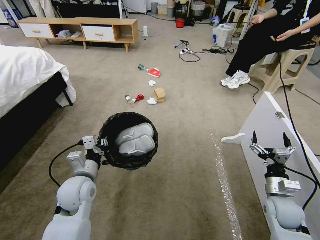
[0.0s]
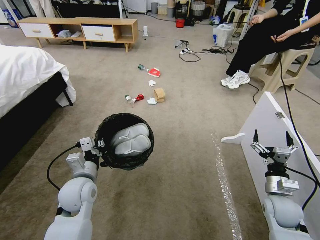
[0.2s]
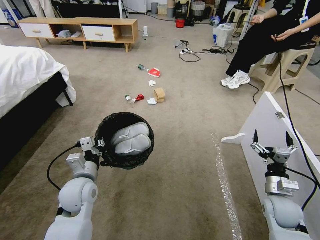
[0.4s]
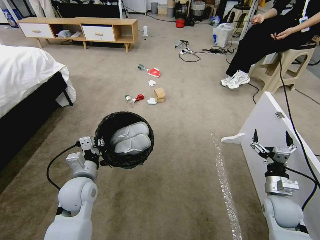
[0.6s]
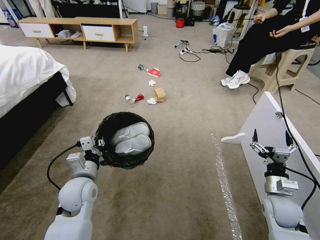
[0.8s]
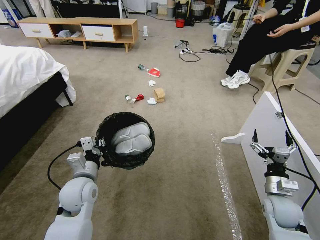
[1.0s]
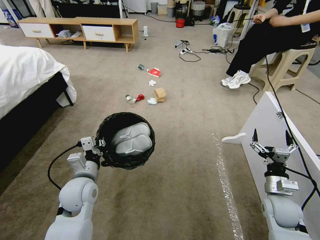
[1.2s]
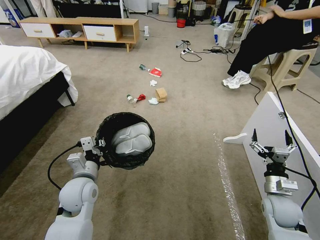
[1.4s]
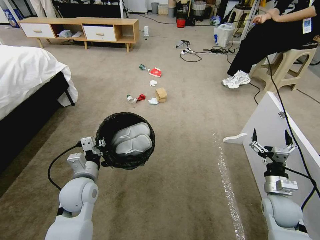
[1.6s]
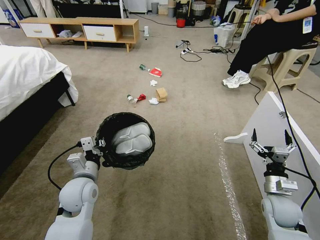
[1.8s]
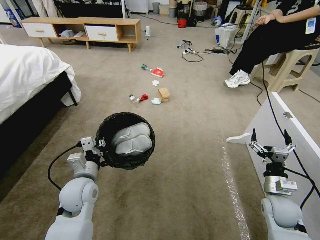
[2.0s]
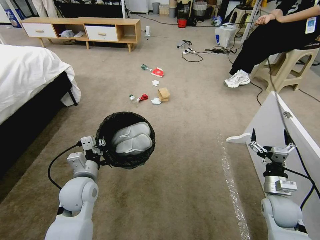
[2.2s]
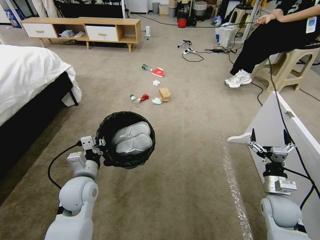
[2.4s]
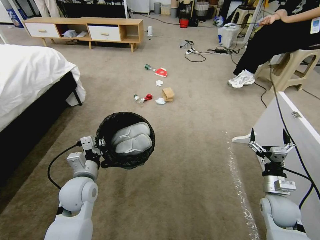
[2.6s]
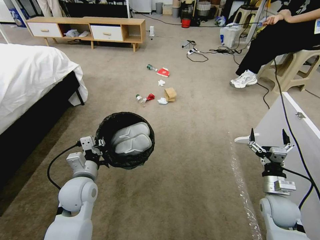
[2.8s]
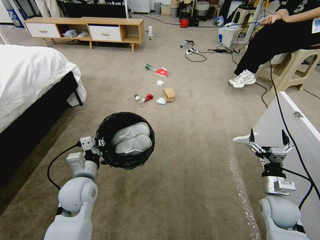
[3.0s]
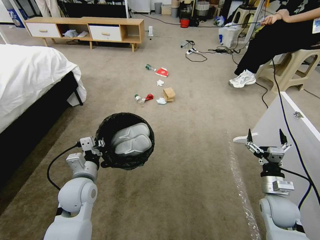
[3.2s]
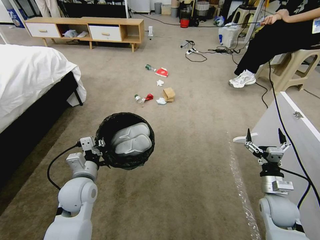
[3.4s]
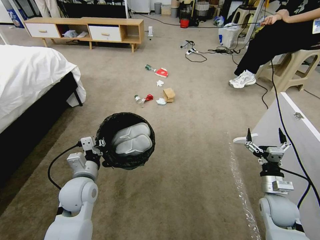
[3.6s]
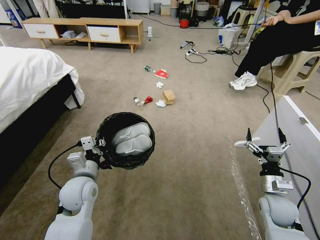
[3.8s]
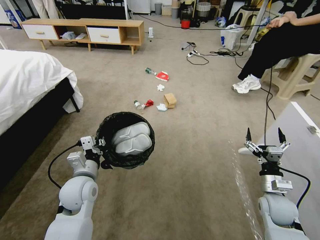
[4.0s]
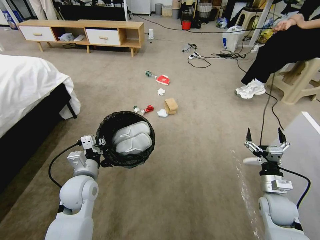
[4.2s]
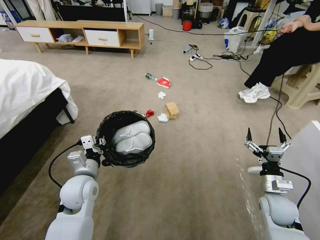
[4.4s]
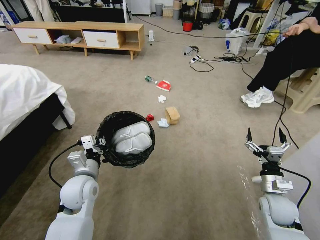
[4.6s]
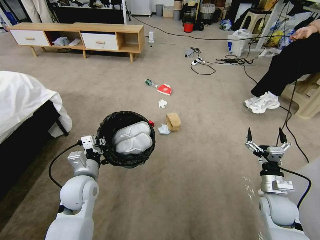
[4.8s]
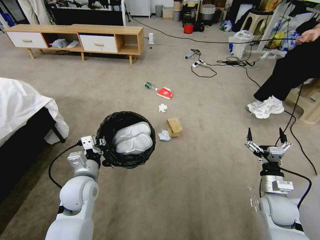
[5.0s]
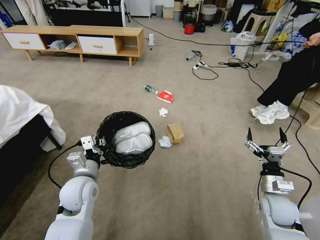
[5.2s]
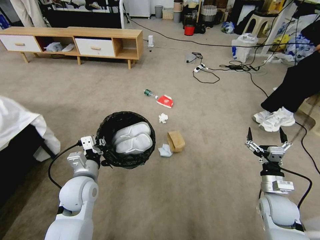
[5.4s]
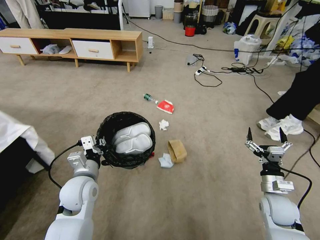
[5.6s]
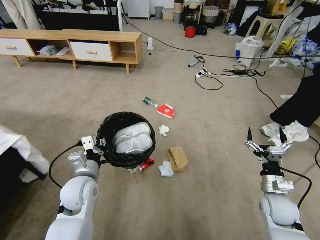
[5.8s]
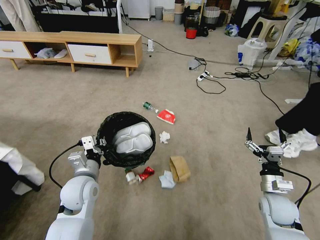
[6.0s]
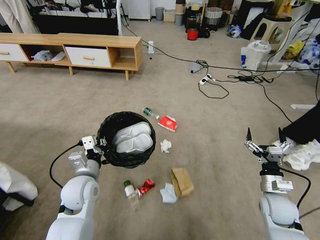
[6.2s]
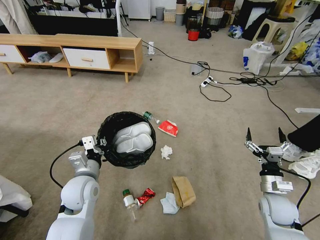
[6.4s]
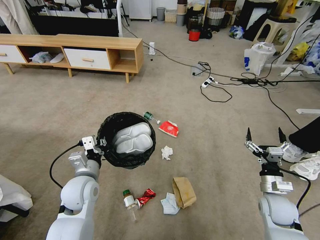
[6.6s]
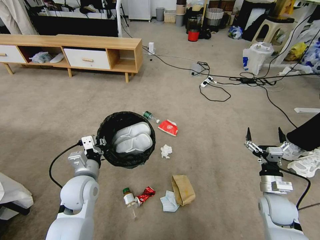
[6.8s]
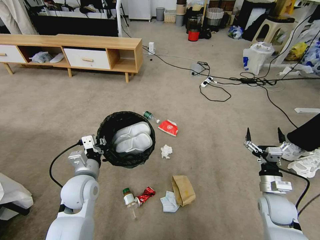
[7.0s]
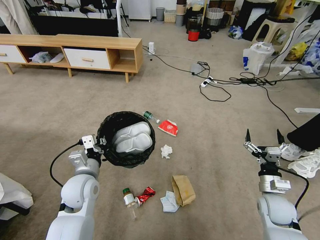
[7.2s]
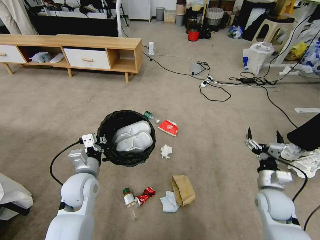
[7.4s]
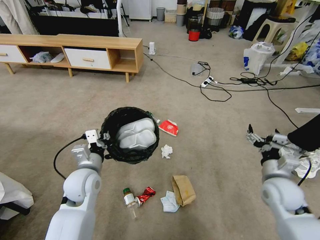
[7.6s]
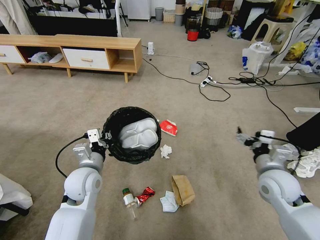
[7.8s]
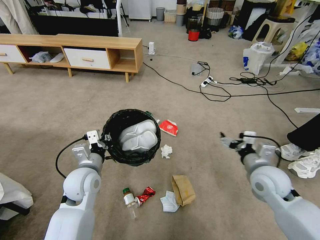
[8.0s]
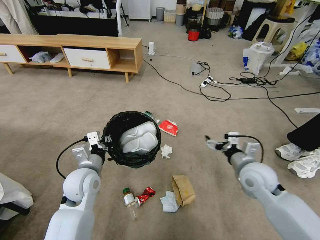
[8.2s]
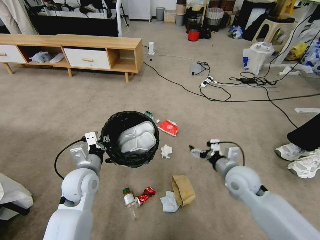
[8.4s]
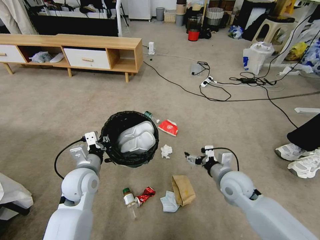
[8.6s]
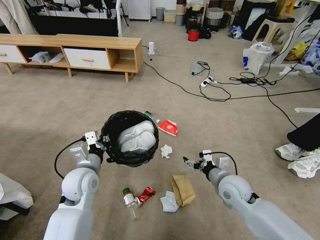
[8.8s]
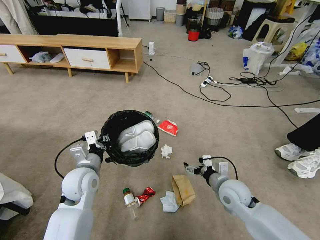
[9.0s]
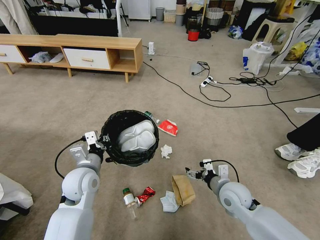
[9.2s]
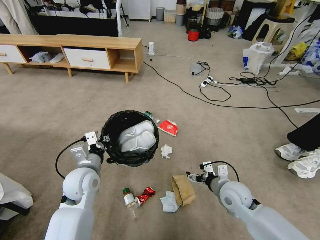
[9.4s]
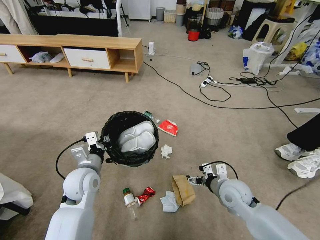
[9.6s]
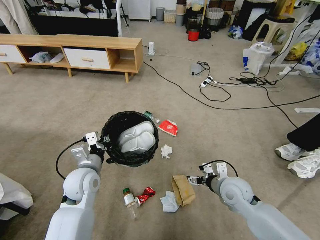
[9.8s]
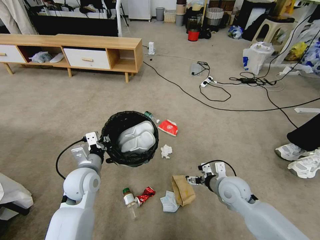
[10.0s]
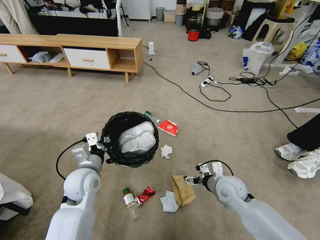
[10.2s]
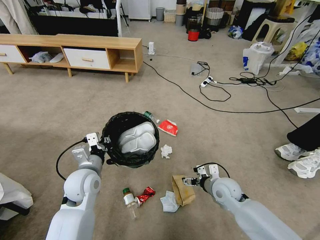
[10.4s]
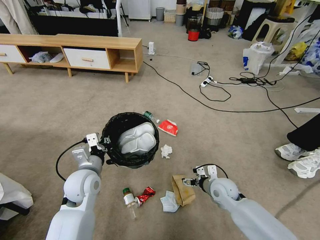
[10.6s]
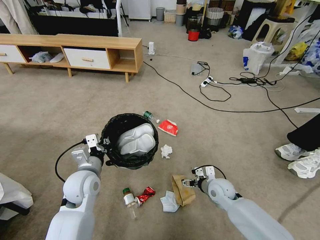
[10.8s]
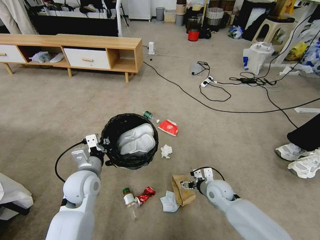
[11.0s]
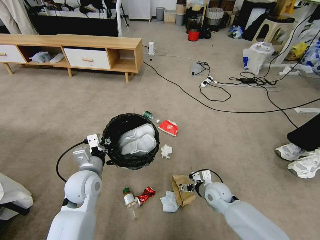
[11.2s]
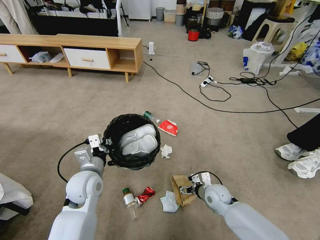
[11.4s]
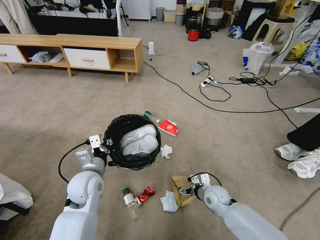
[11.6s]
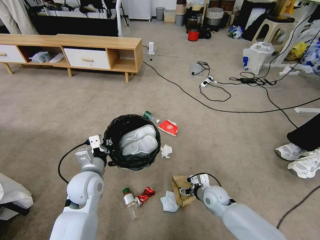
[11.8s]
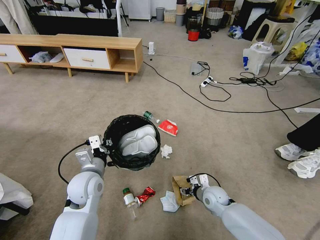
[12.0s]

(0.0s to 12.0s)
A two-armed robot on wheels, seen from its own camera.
Task of the whole recording: Pick up the trash bin and place the garbage on the floor into it.
6.0s - 7.6s: The right gripper shifts some 10 cm upward.
7.6s - 9.0s: The right gripper is displaced to the left and downward by some 15 cm.
9.0s - 10.4s: There are only small adjustments of the grippers.
10.4s - 12.0s: The right gripper shifts roughly 10 cm downward, and closes up.

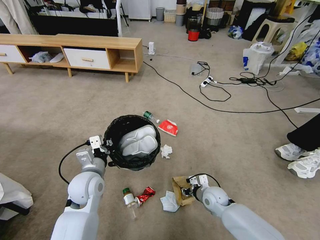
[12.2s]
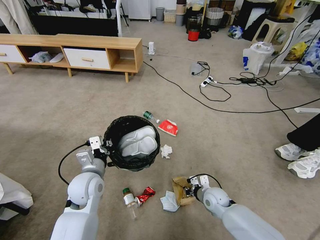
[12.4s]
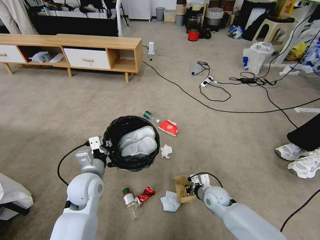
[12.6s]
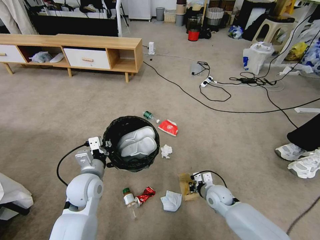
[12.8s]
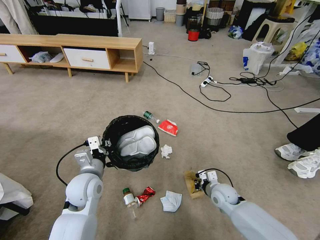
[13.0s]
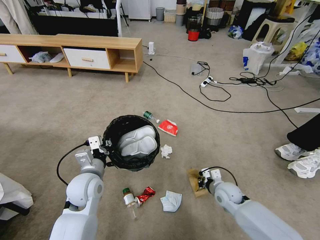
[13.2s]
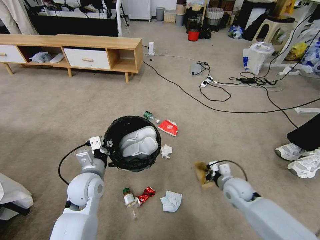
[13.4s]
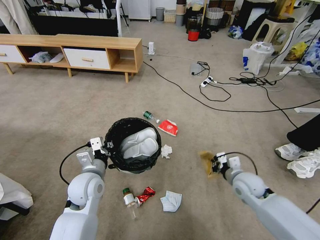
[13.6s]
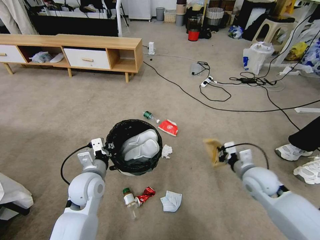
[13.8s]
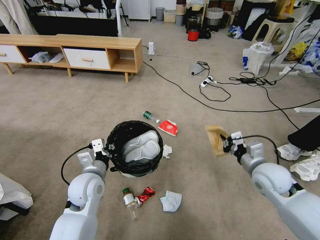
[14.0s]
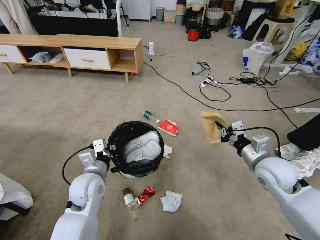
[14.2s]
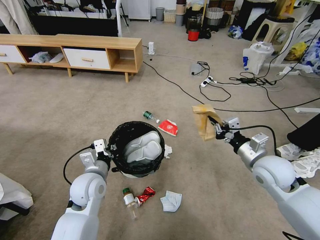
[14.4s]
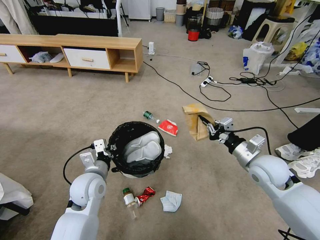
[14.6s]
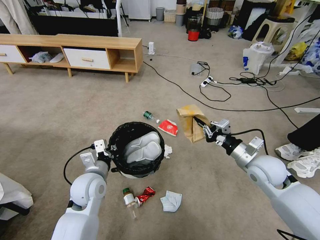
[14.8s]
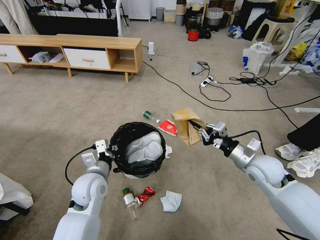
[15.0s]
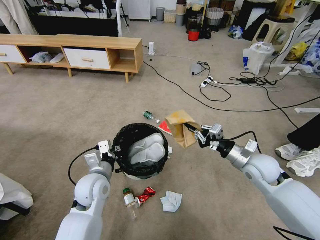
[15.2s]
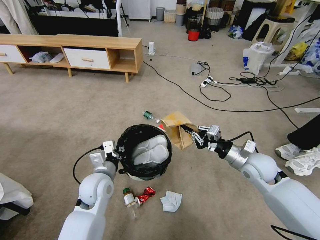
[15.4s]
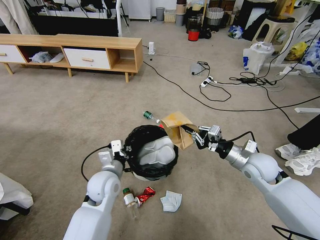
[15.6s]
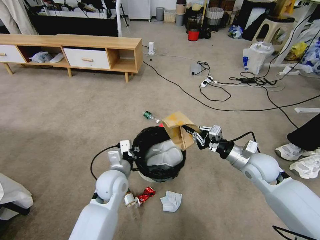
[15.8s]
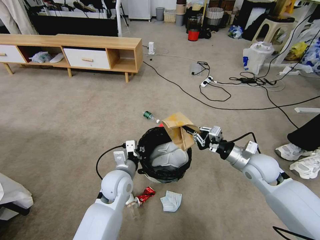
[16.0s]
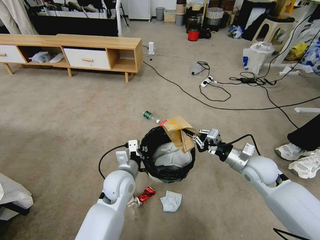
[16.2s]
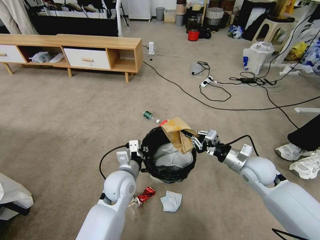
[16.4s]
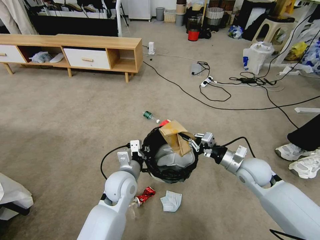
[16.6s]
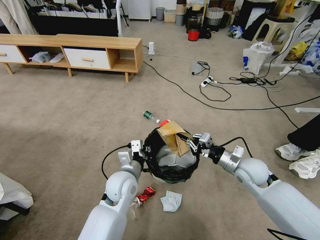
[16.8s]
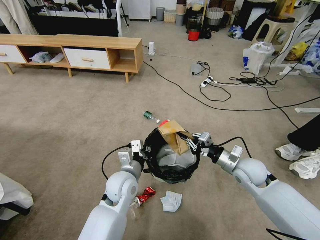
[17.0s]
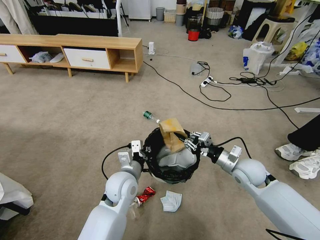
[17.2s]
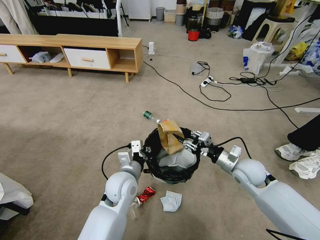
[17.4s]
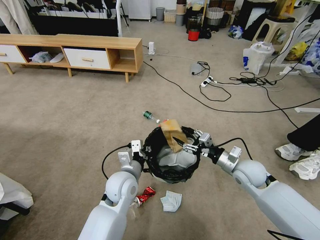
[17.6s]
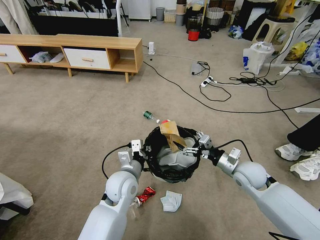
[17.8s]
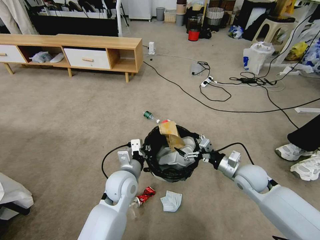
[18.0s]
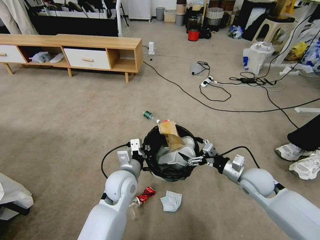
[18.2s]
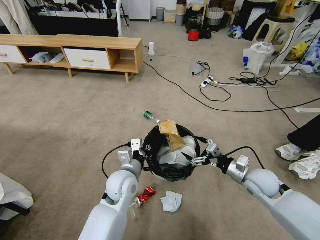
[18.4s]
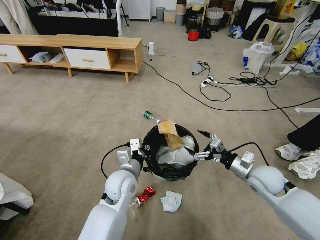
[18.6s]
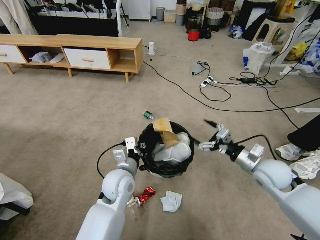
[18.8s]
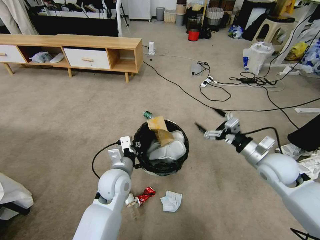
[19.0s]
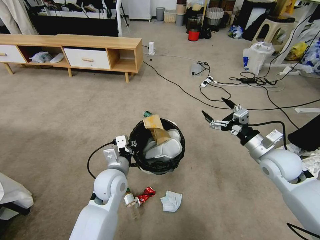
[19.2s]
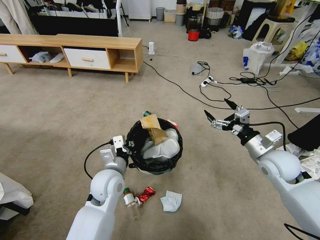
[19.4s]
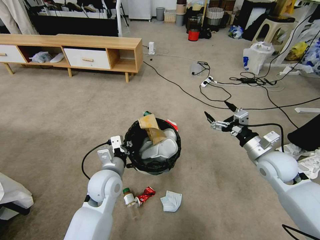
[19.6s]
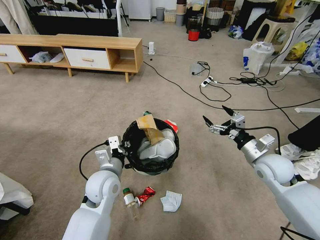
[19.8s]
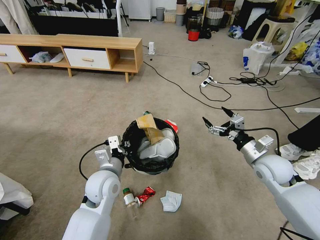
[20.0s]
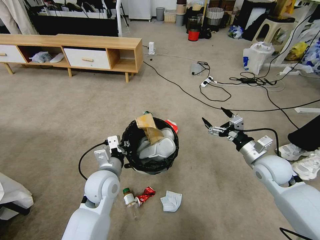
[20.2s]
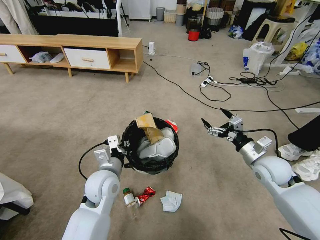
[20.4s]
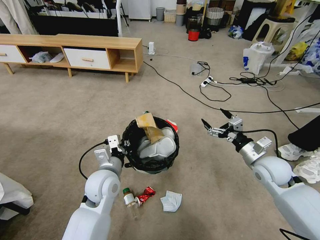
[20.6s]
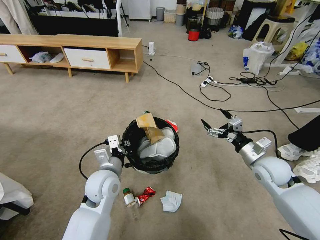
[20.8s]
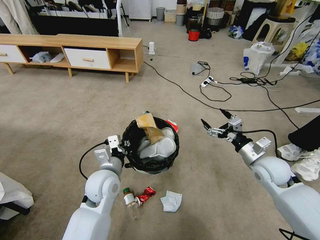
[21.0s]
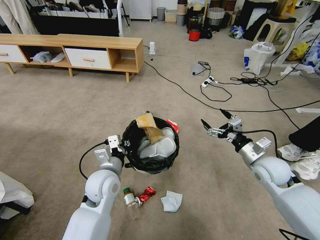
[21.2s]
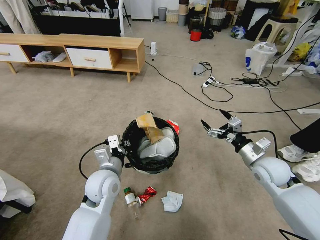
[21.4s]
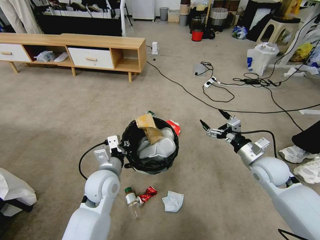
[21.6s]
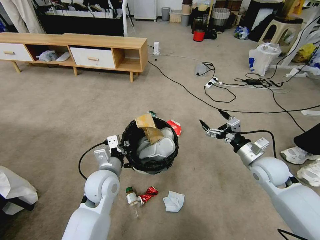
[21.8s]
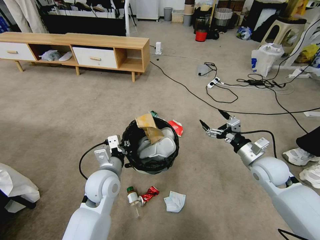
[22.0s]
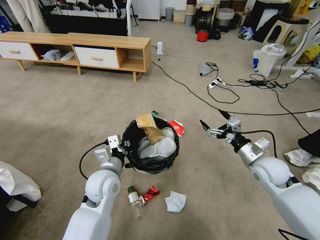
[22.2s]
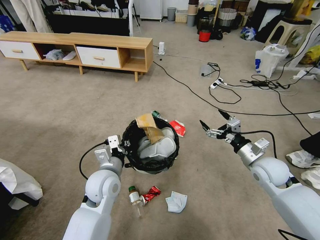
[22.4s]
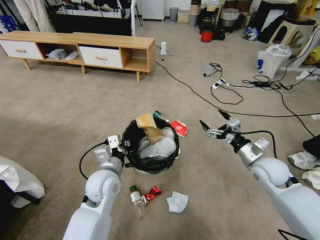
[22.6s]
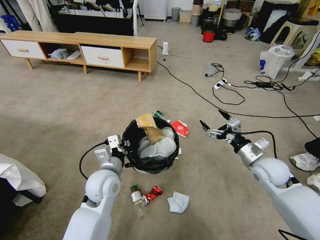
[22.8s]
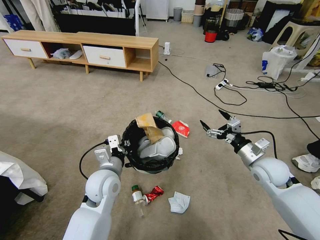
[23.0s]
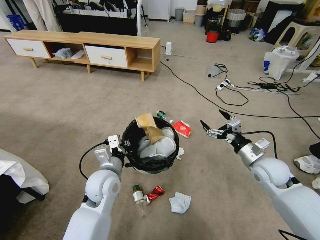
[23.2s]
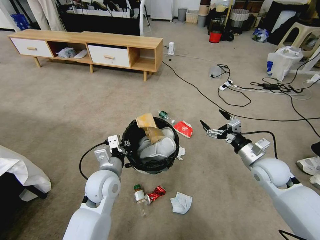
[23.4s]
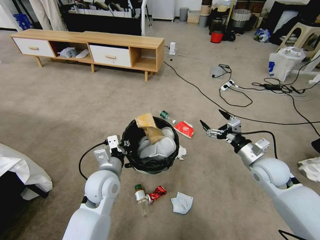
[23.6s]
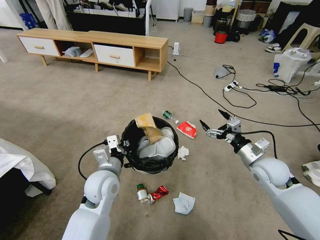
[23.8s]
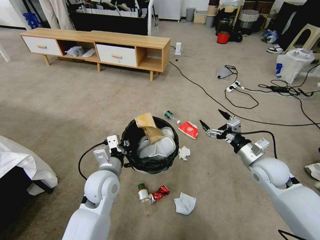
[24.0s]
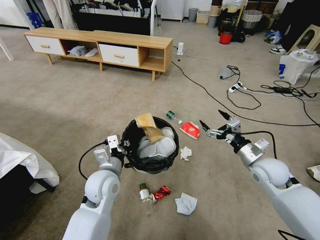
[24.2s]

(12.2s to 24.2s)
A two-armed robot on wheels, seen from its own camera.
Task of the whole recording: Pick up the trash bin and place the garbage on the floor into it.
12.2s - 13.8s: The right gripper travels upward and to the right by about 20 cm, and closes.
15.2s - 16.6s: The left gripper goes about 10 cm to the right.
16.6s - 18.2s: The right gripper opens.
18.2s - 19.8s: The right gripper is displaced upward by approximately 5 cm. Meanwhile the left gripper shifts about 5 cm to the left.
19.8s - 21.2s: Both grippers stay put.
